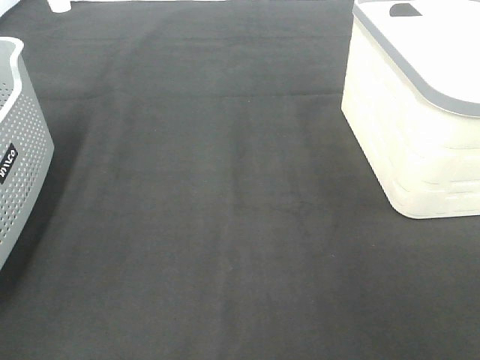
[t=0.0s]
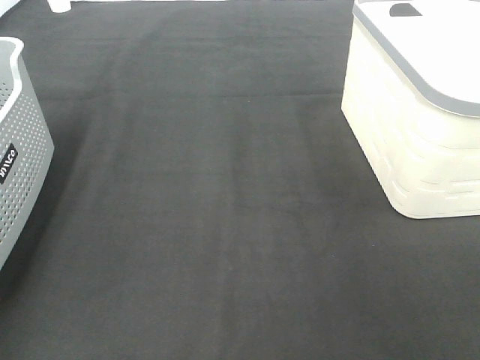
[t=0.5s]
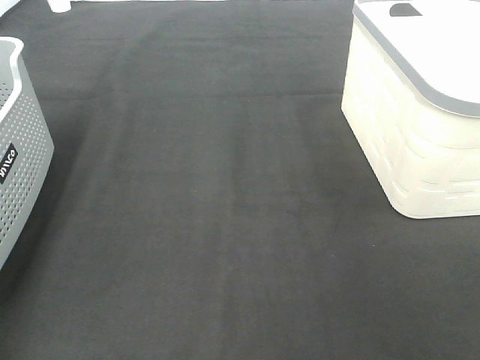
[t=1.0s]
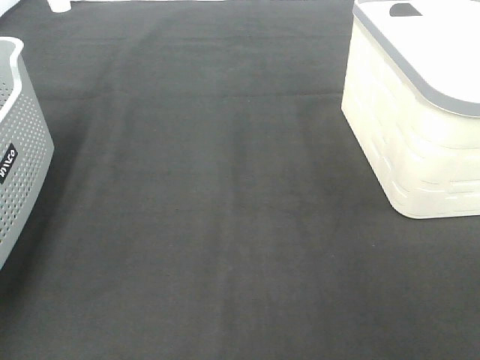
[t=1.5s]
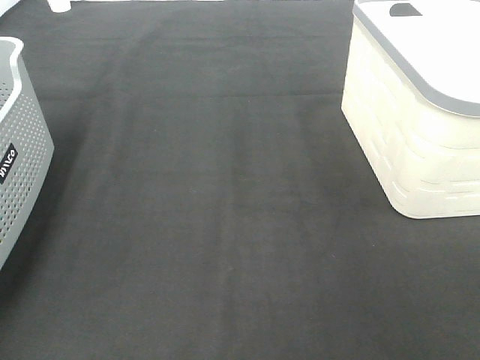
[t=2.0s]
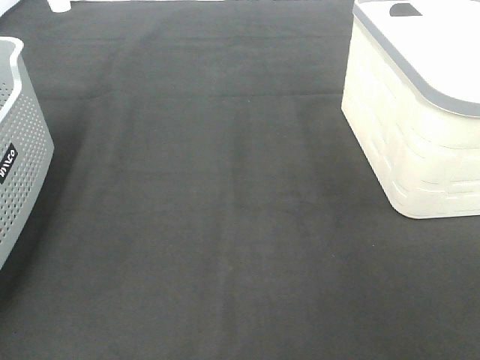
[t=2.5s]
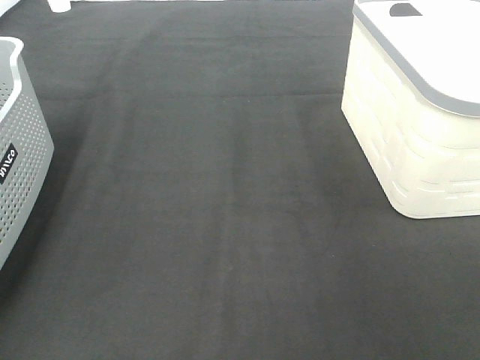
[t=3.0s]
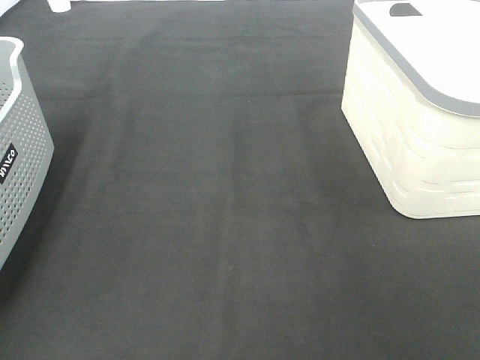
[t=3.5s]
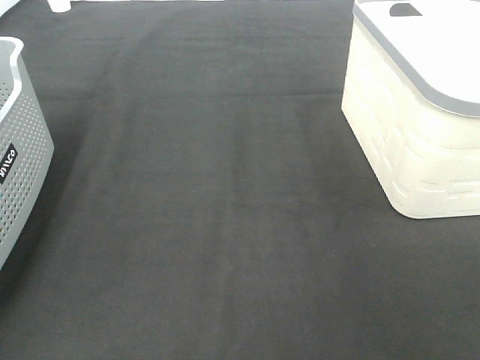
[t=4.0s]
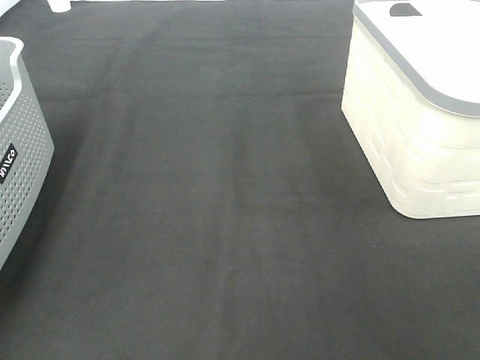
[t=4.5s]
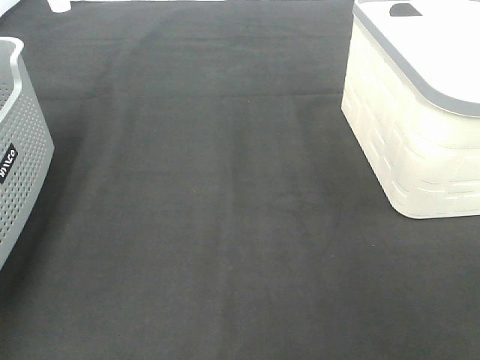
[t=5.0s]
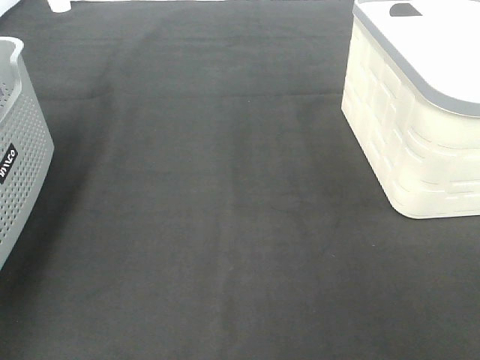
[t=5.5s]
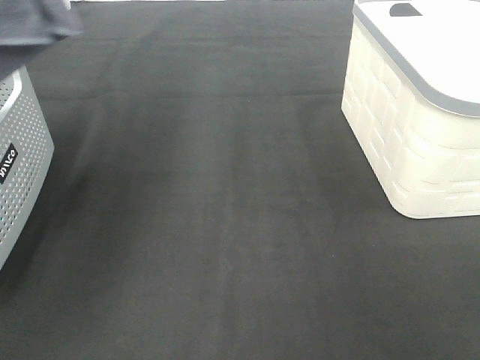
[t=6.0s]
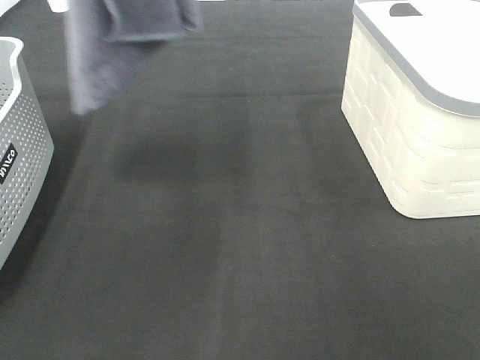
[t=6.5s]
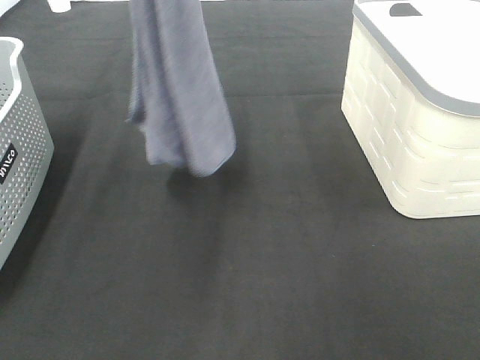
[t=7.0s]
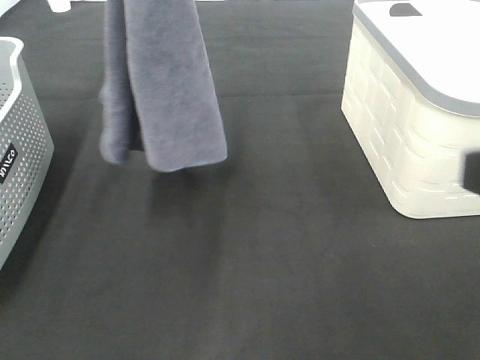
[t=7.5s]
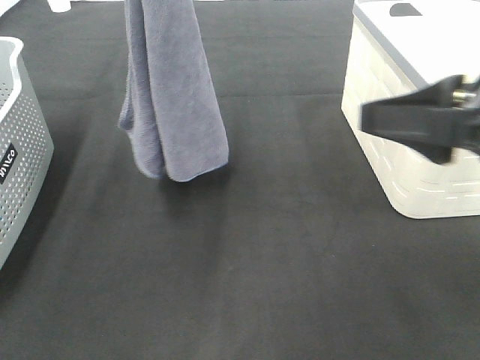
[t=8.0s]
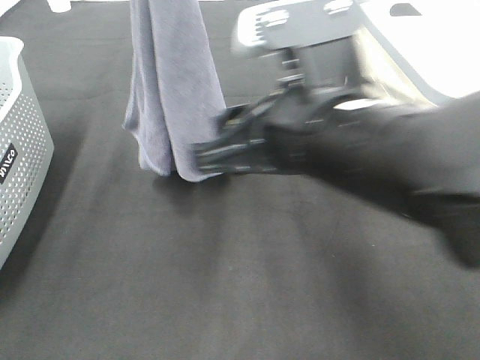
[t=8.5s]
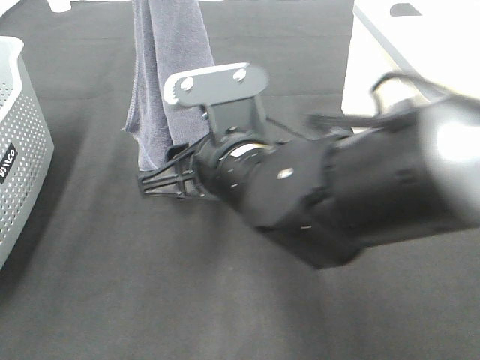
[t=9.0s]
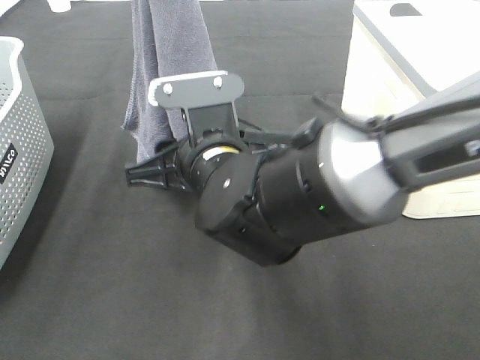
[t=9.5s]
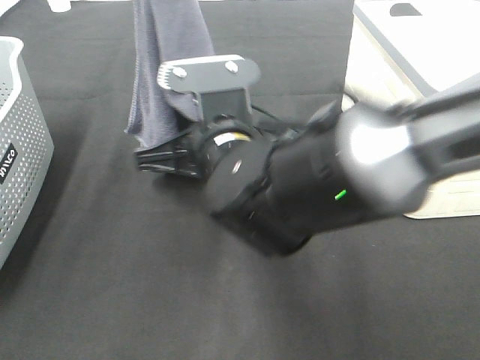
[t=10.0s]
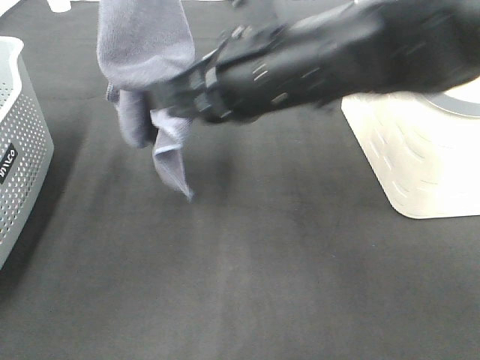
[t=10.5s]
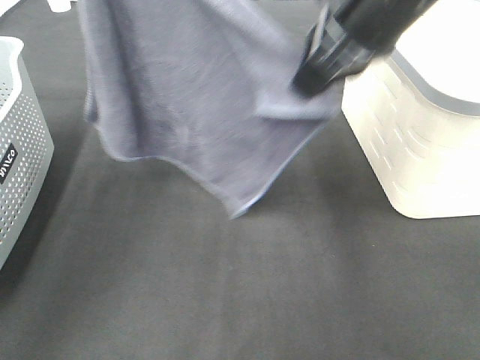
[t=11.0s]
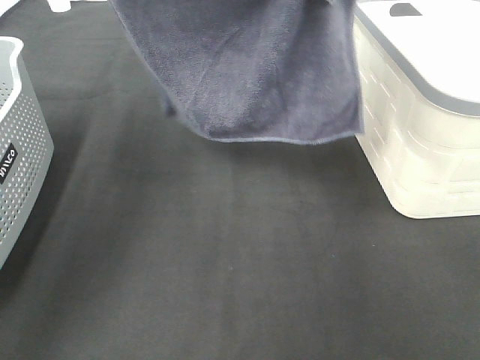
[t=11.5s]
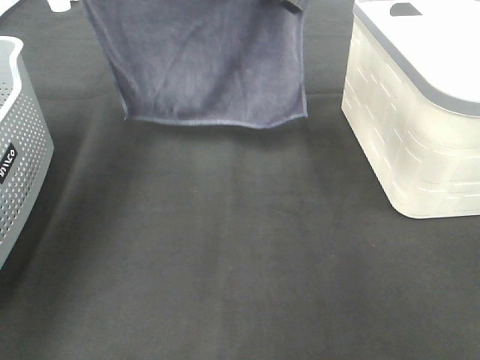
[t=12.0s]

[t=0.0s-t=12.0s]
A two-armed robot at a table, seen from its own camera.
Task of the whole recording: Remove the towel and place it.
Step, t=5.5s to t=7.5s: Right hand: grab a corner of the grey towel and straighten it.
Step, t=8.0s to t=10.0s: Right hand: spread the grey towel flat on the table.
t=4.0s to t=6.0s: The left gripper goes roughly 35 cm upward and to the right.
t=6.0s to t=8.0s: The right gripper goes some 20 cm forward and to the left. The left gripper heads to the right and downward, covering roughly 15 cm.
t=8.0s to t=10.0s: The right gripper goes roughly 25 cm to the left and downward, and closes its fingers.
t=10.0s to t=12.0s: The right gripper heads upward, forward and to the right, covering approximately 25 cm, while the left gripper shifts about 20 cm to the left, forward and downward.

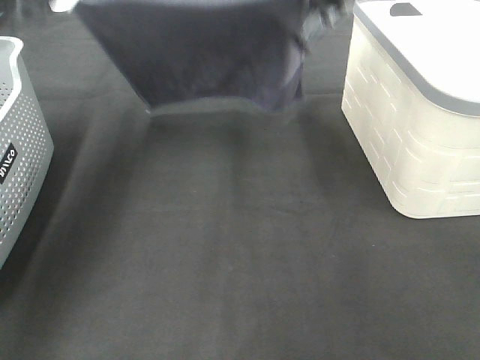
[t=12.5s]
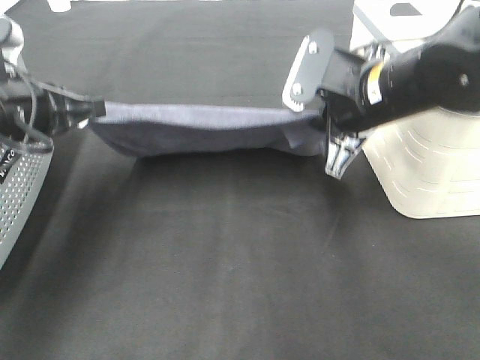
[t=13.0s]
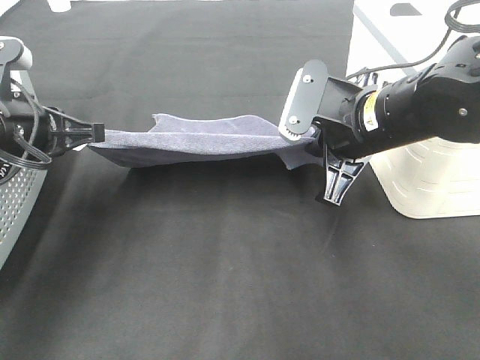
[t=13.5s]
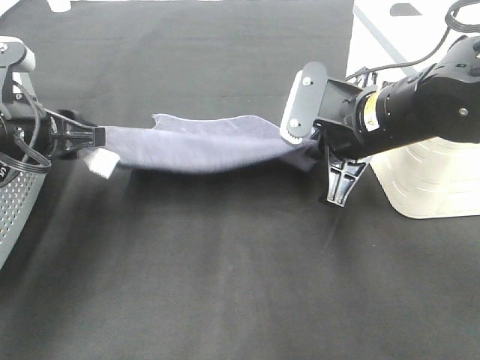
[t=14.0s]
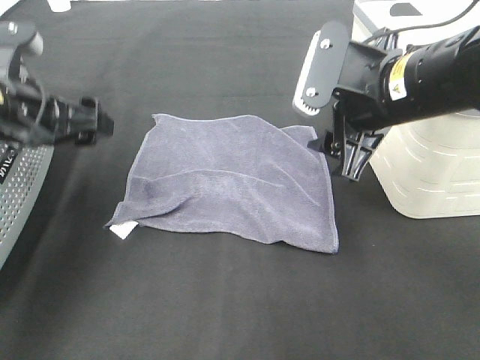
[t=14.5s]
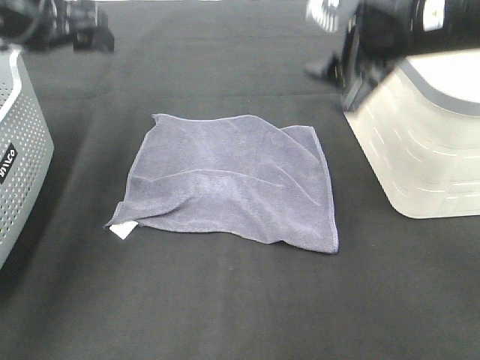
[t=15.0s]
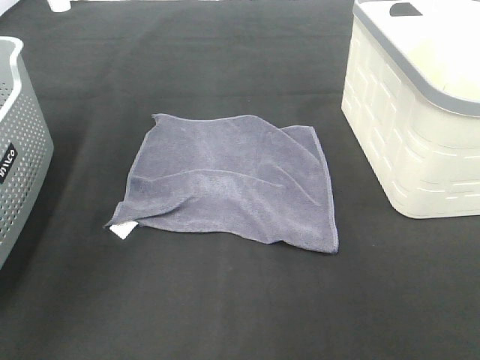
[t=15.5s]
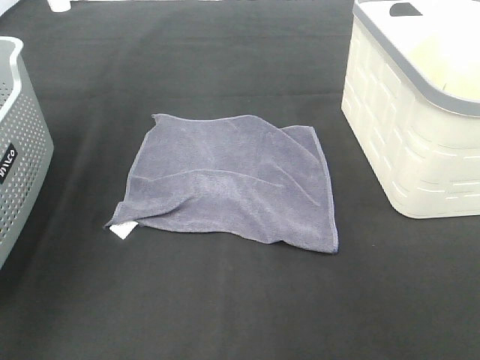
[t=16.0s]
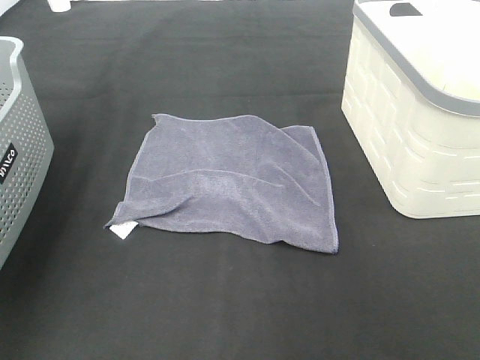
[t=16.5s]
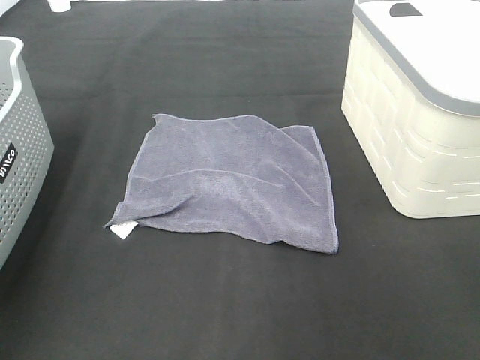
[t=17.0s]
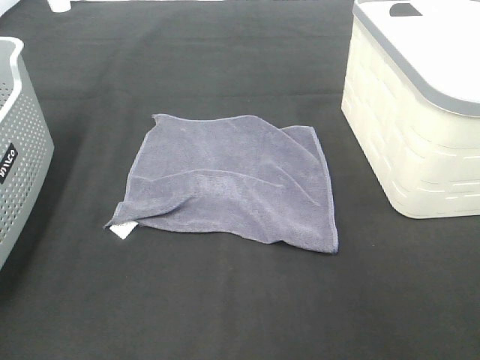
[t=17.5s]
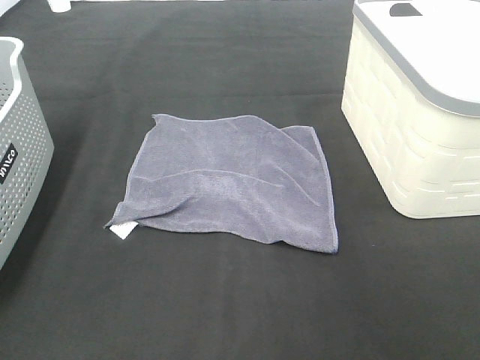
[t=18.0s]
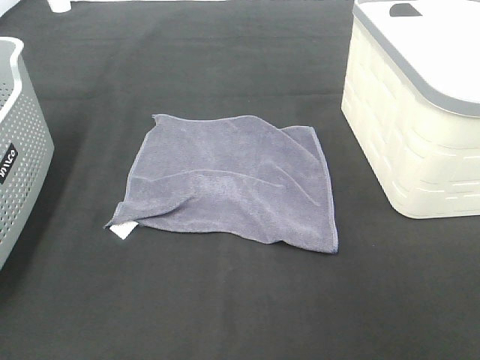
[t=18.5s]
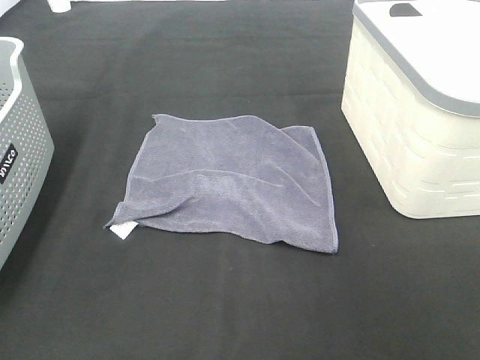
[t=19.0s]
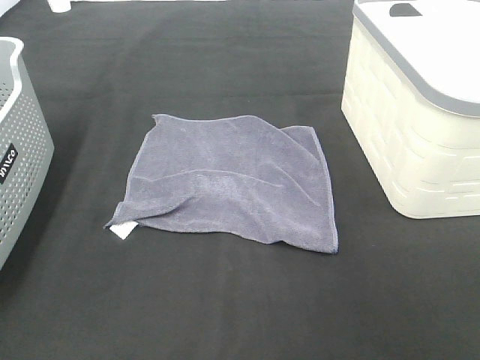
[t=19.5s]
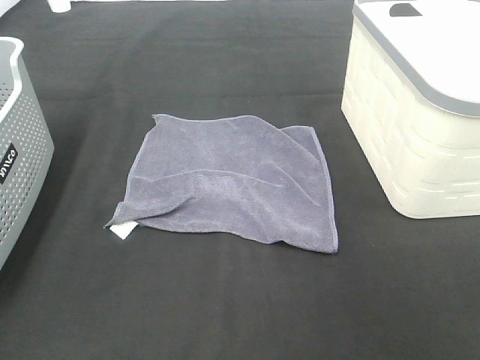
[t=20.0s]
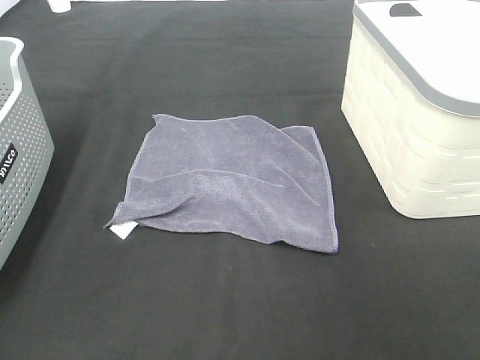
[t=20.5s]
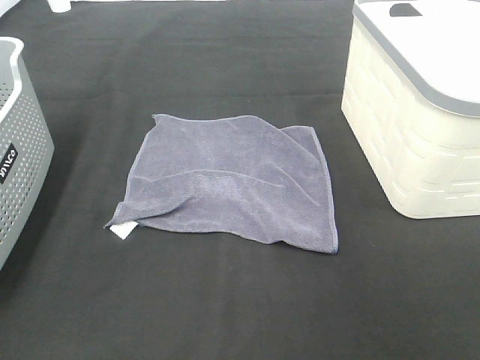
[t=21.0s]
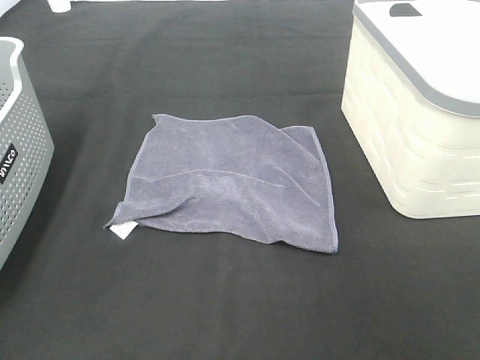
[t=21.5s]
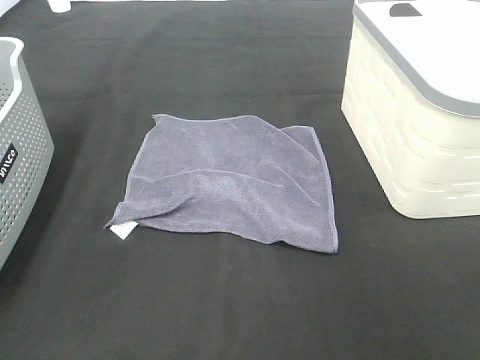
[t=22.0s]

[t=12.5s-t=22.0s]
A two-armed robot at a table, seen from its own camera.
Task of the whole recording: Remove the towel and place it.
t=12.5s to t=14.5s: The right gripper moves backward and downward, approximately 10 cm, and opens, while the left gripper travels downward by some 5 cm, and opens.
t=14.5s to t=16.5s: The left gripper travels upward by about 25 cm; the right gripper is displaced upward and to the right by approximately 20 cm.
t=16.5s to t=18.0s: The left gripper is displaced backward and downward by approximately 30 cm.
t=20.0s to t=22.0s: The two grippers keep their place.

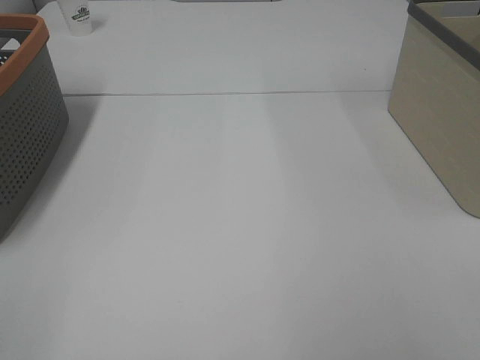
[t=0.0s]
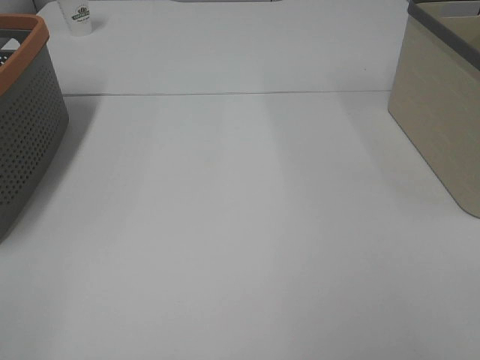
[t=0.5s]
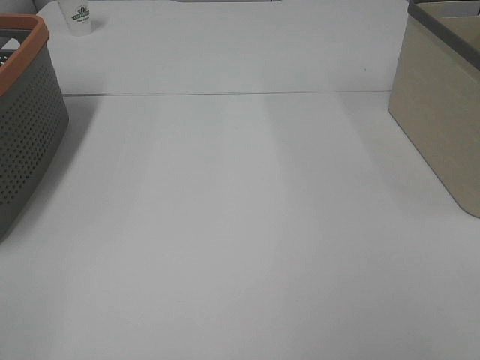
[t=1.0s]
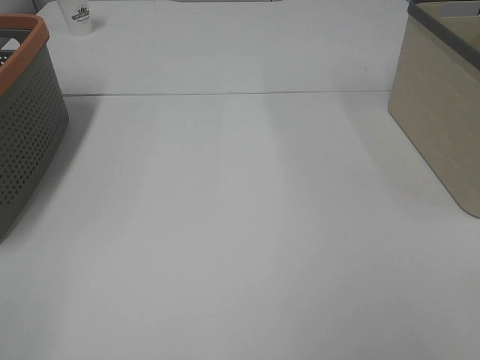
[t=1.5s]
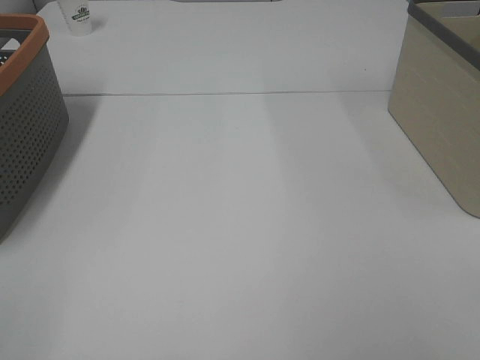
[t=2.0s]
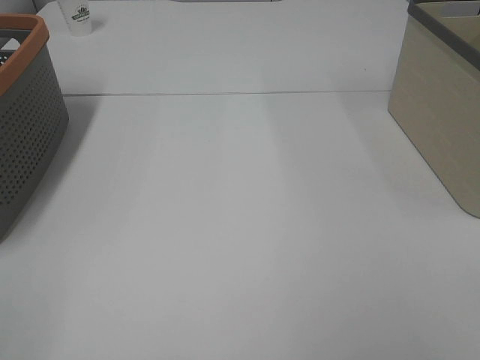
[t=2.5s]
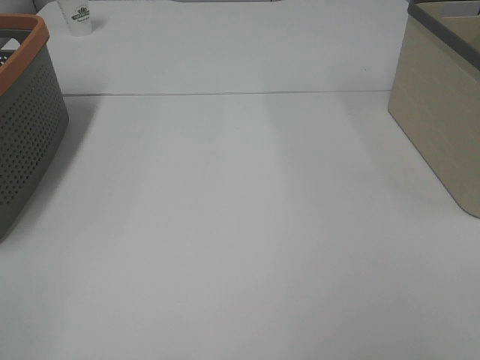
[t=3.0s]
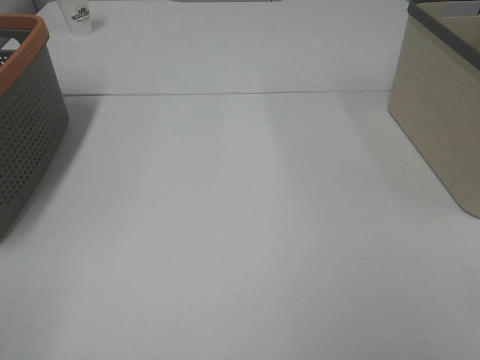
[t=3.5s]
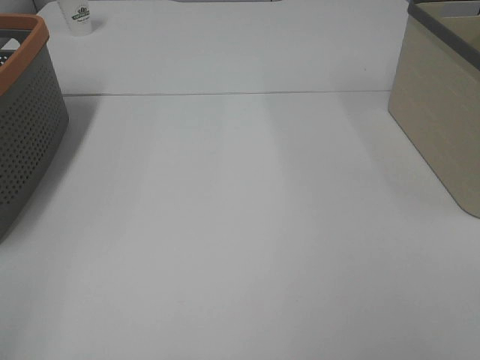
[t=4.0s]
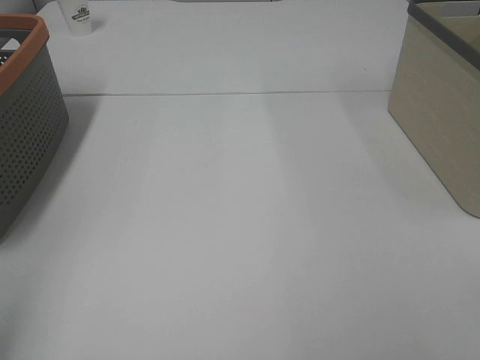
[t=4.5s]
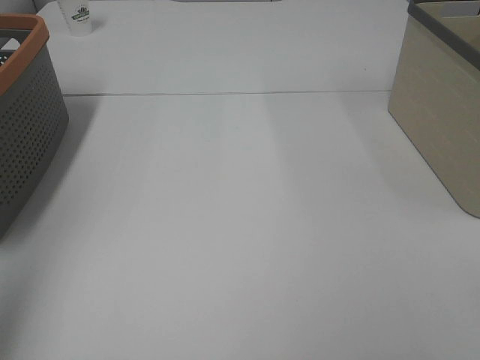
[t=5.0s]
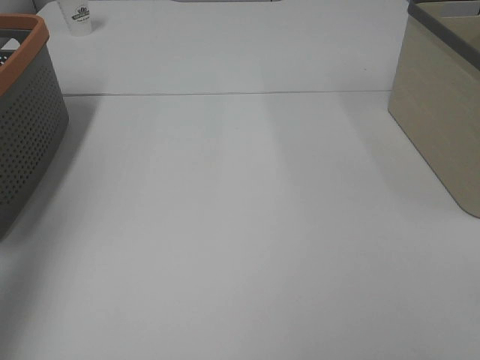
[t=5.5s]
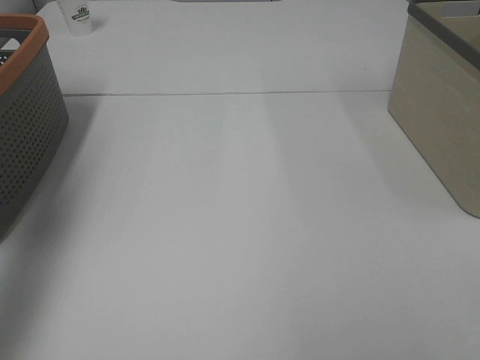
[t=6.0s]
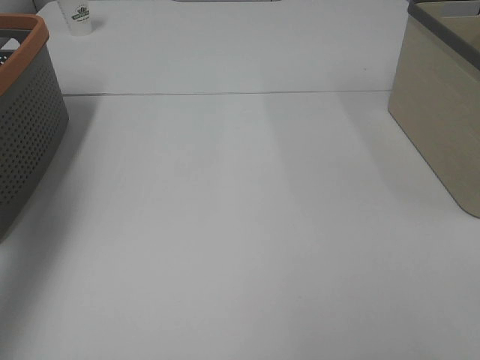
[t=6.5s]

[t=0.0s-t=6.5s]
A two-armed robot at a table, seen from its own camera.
Task of the whole recording: Remove the towel and place it.
t=0.0s to t=2.0s: Both grippers stay put.
t=4.5s to t=6.5s: The left gripper is displaced forward by approximately 25 cm.
